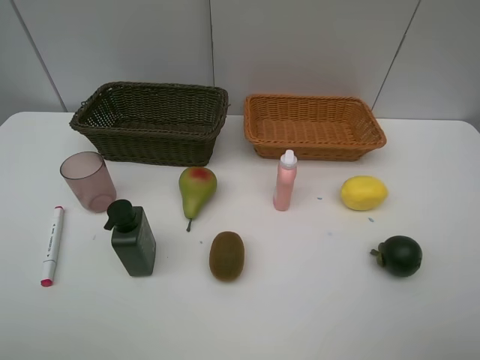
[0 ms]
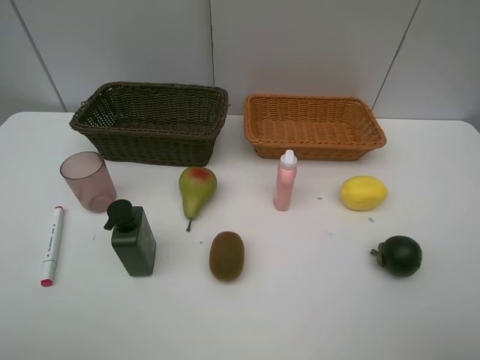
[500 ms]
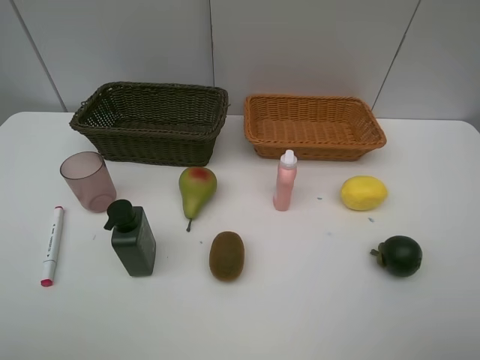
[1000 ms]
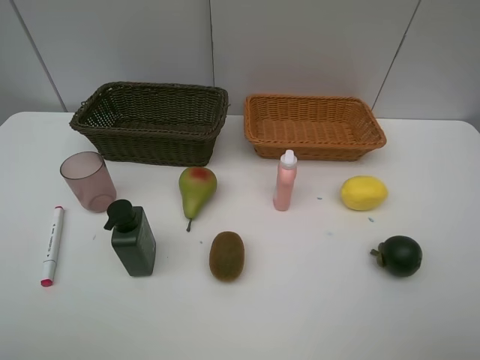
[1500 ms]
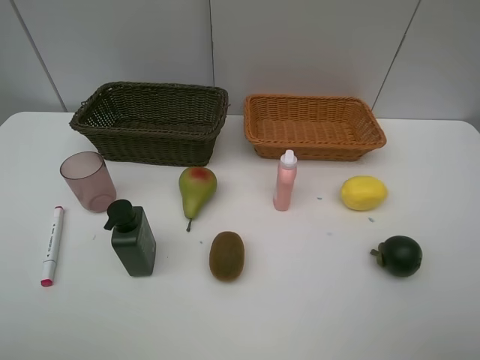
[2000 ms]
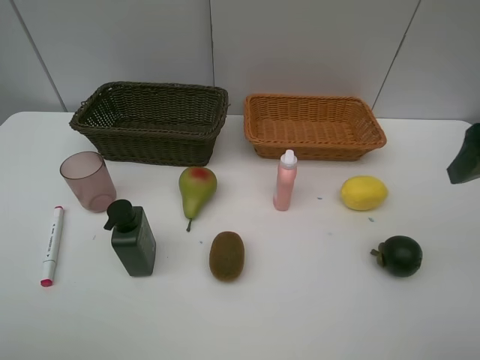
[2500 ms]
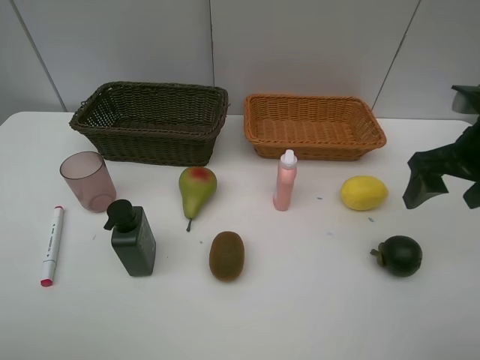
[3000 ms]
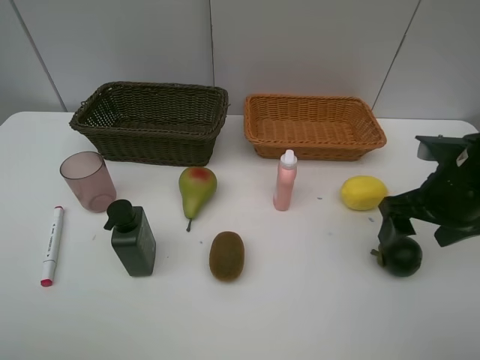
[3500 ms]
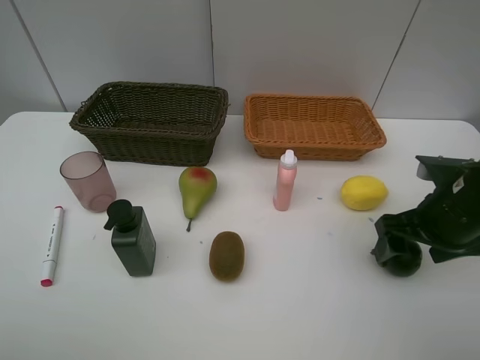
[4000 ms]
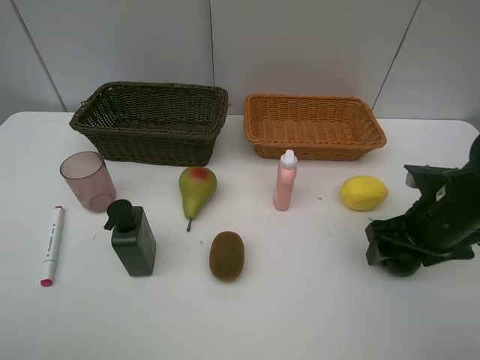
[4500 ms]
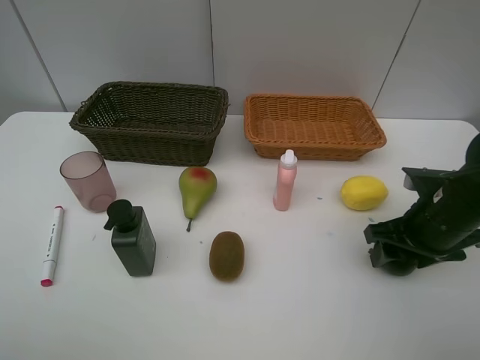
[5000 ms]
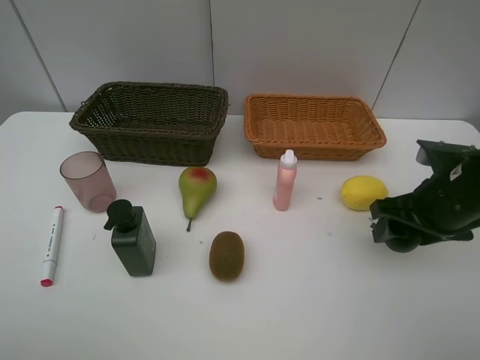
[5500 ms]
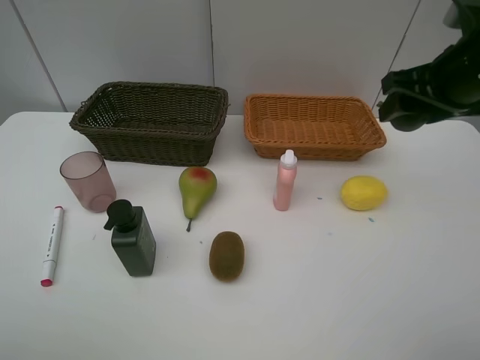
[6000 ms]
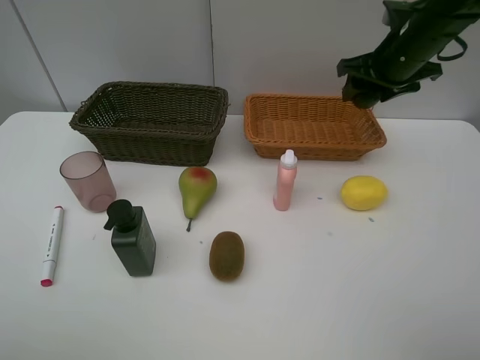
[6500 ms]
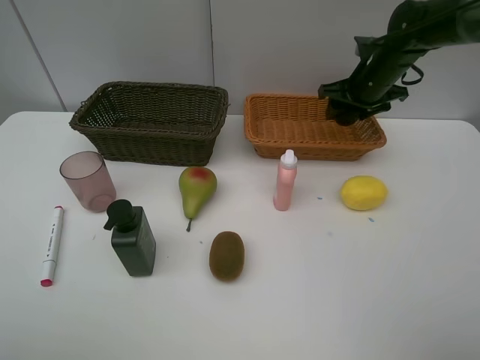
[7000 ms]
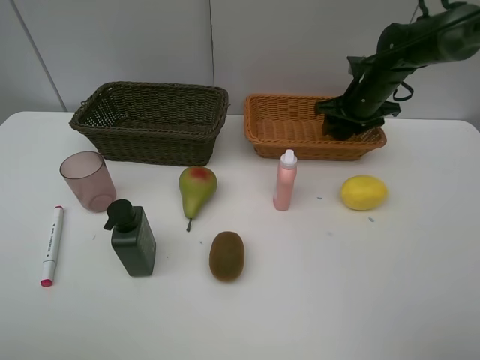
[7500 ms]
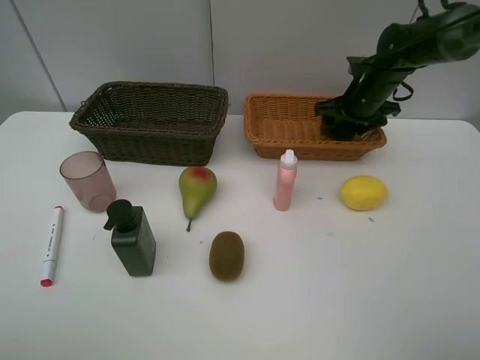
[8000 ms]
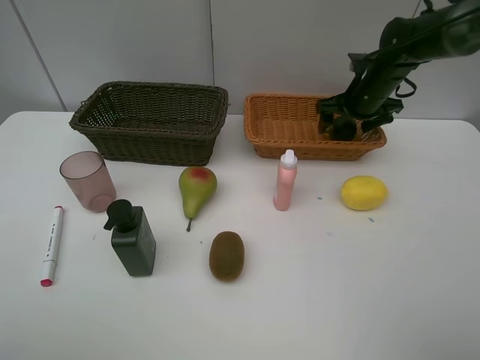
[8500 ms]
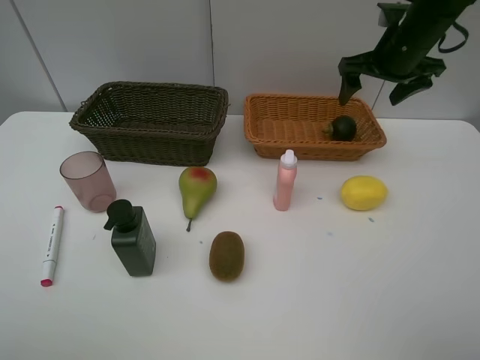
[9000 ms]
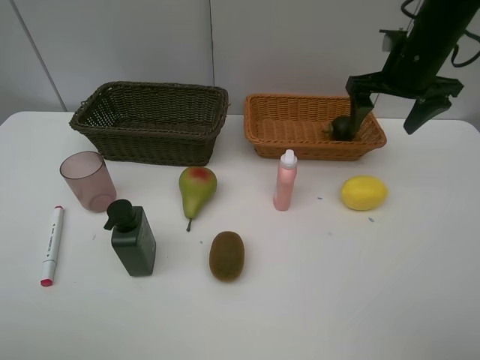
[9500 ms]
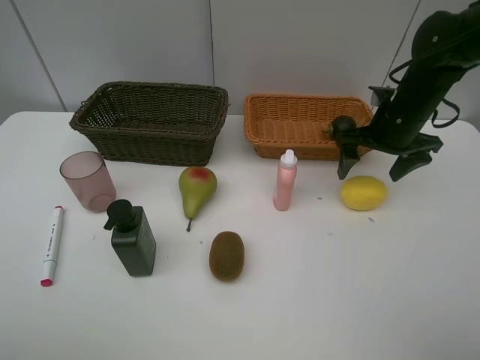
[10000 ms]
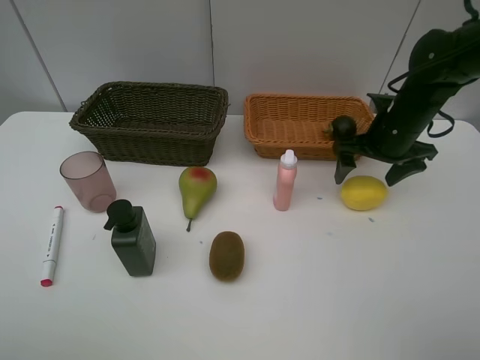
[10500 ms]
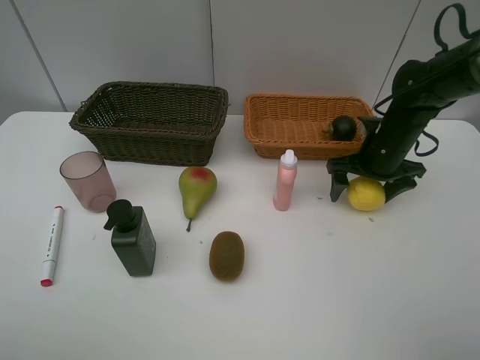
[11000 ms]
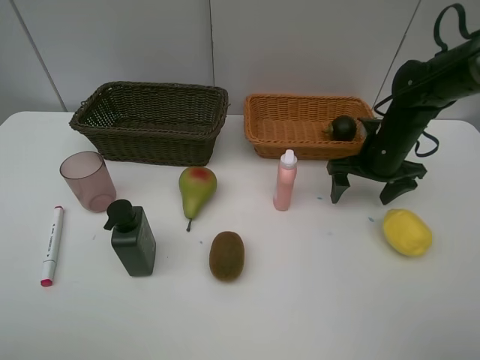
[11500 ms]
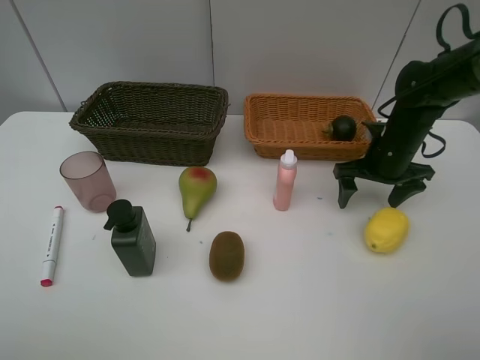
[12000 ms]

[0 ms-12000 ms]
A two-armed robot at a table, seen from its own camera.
Task of the whole recording: Place multiple objects separately in different baskets.
Step, 0 ms to 5500 ms: Pick up the mangosteen with right gripper.
Step, 6000 ms to 8500 ms: Place the mangosteen in the light basket with right gripper.
2000 ms to 4000 ms: The right gripper moves forward and downward, roughly 25 cm.
4000 ms to 6000 ms: The right gripper moves upward and forward, approximately 15 cm.
6000 ms to 8000 ms: The right gripper goes about 20 cm forward and downward.
8000 ms to 10000 ms: The right gripper heads backward, covering about 10 cm, and moves about 10 cm upward and comes back.
10000 ms to 12000 ms: The right gripper shifts some 5 cm downward.

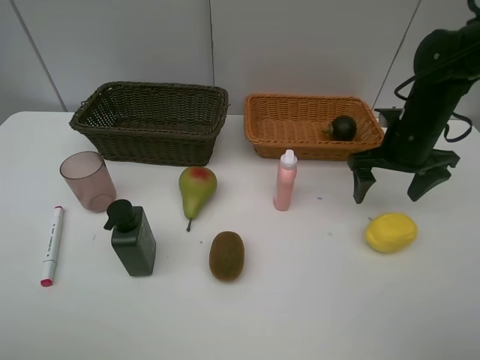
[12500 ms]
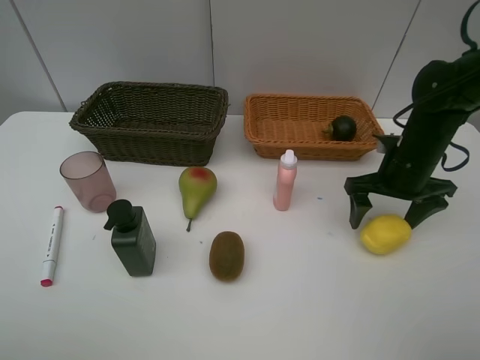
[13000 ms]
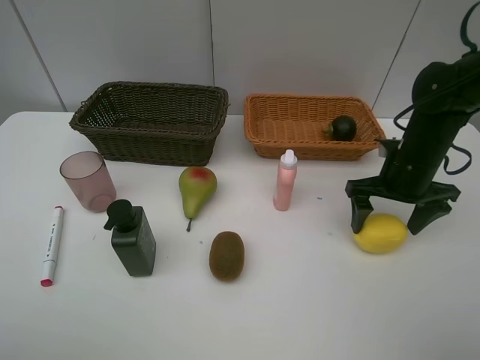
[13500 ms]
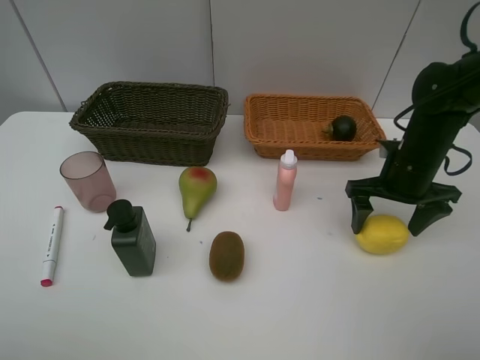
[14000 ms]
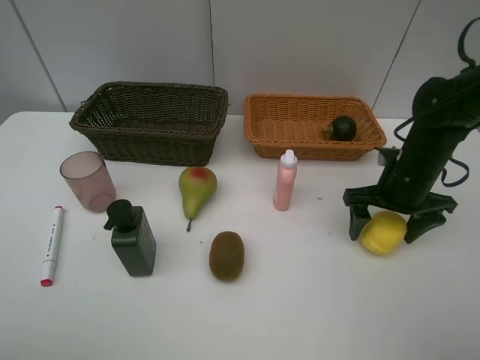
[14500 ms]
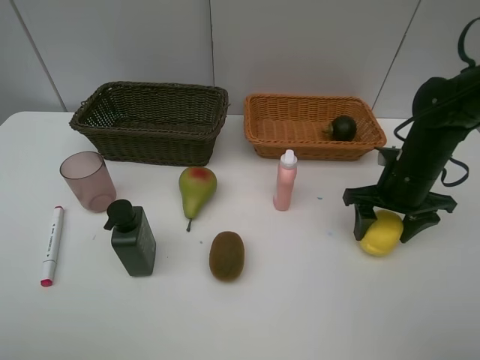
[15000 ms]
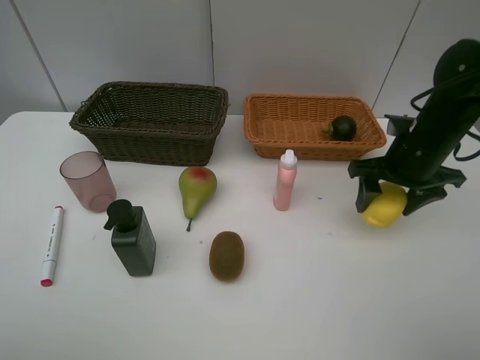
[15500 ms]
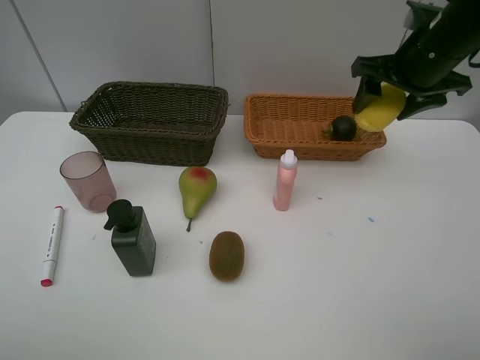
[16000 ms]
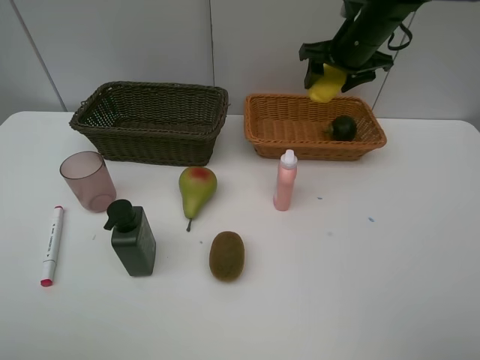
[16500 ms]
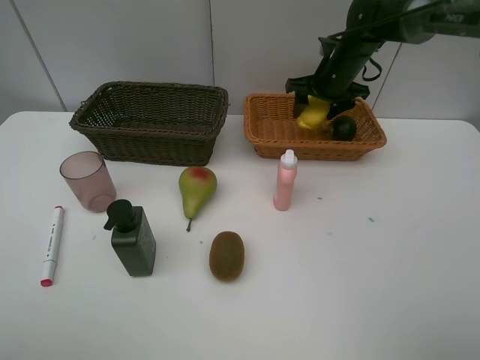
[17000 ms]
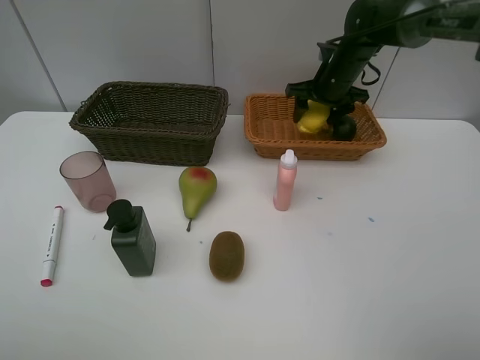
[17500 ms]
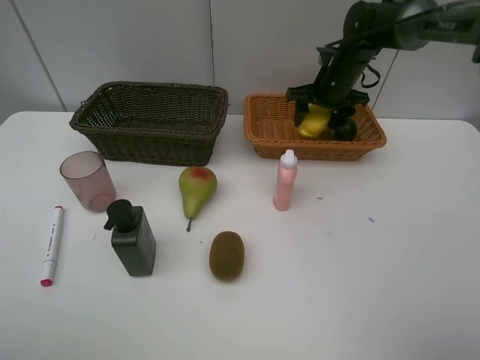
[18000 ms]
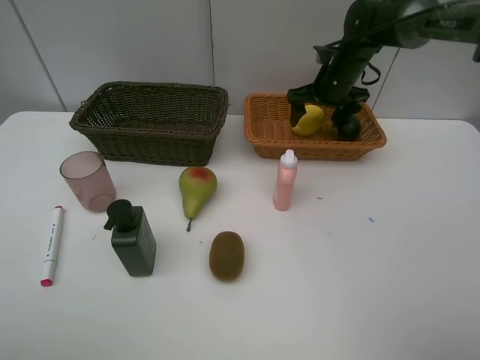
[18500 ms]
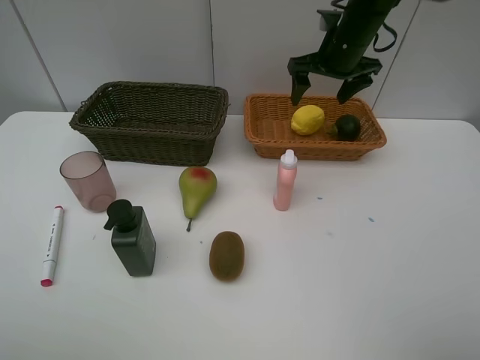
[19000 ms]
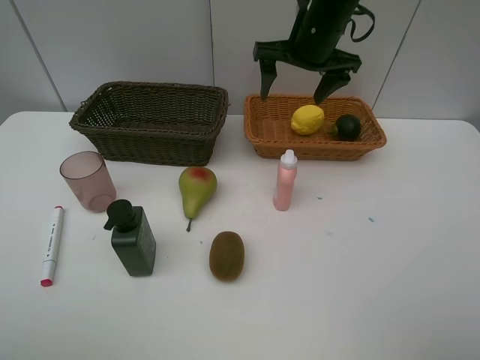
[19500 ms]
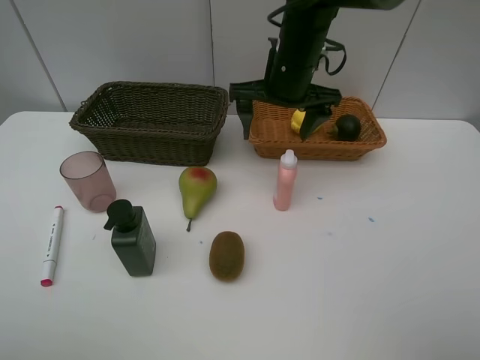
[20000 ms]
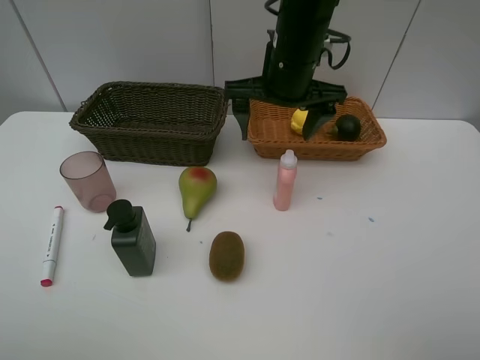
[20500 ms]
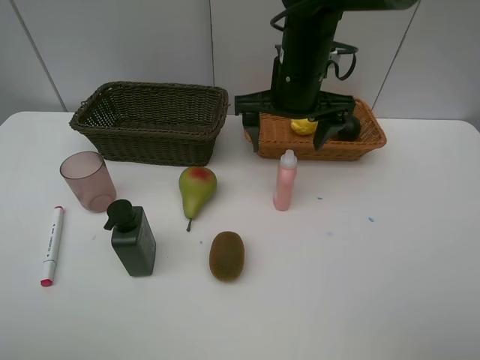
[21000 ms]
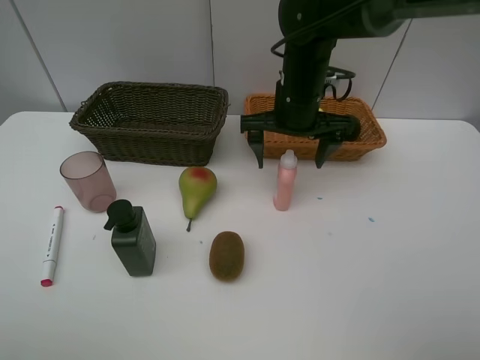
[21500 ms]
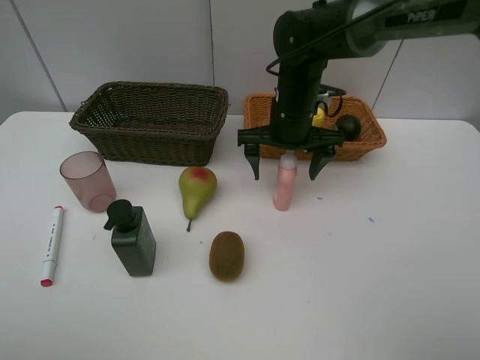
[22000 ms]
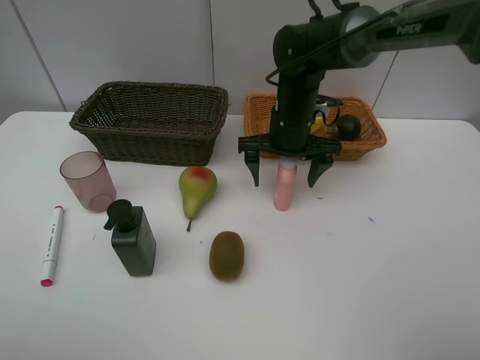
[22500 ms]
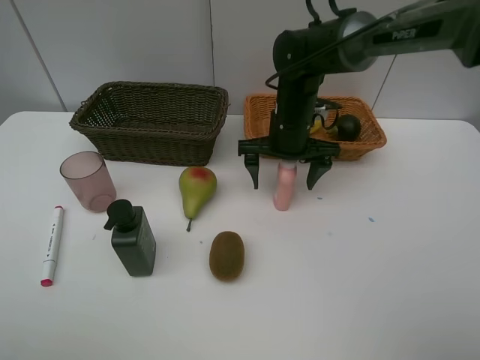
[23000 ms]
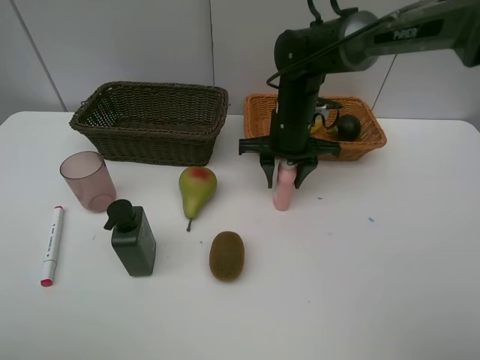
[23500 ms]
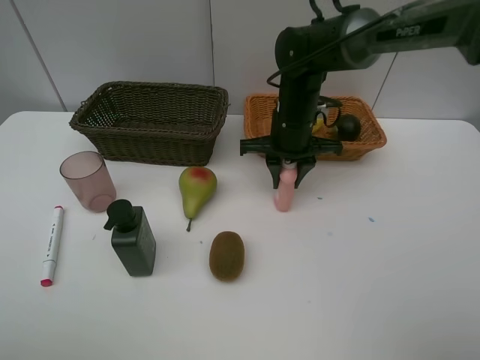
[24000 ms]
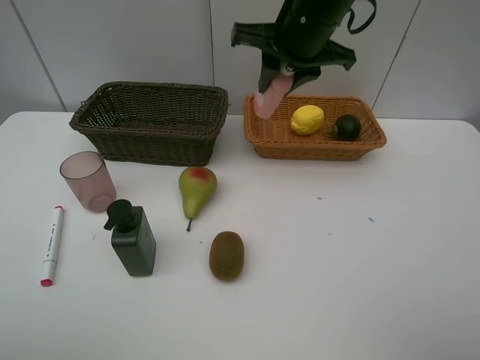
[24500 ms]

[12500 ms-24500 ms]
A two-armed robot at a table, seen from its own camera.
Task of the whole recording: Place multiple objects separately in different baskets.
Step, 12500 ms to 15500 ms: Pick up the lemon with right gripper.
Step, 16000 ms to 18500 ms: Place the lemon in the light basket with right gripper.
Step, 19000 ms to 24000 ms: Pick up the laundry detergent with right gripper.
12500 ms to 14500 ms: The right gripper ends up roughly 5 cm from where it was.
14500 ms to 16500 ms: The right gripper shifts some 20 cm forward and upward.
16500 ms to 18500 ms: The right gripper shifts approximately 5 cm downward, and opens its fingers.
18500 ms to 20500 ms: The right gripper is displaced backward, to the left and upward by approximately 20 cm.
20500 ms to 22500 ms: The right gripper goes roughly 10 cm downward.
22500 ms to 24500 ms: The right gripper travels upward by roughly 15 cm, and closes.

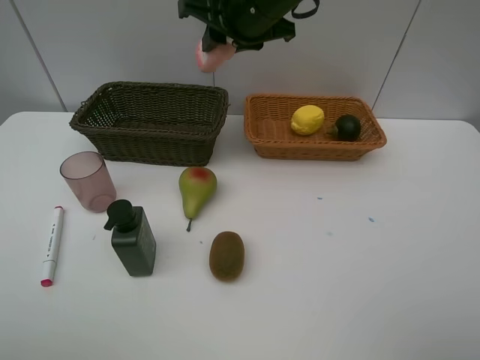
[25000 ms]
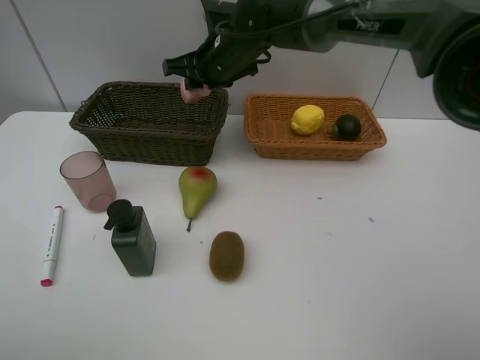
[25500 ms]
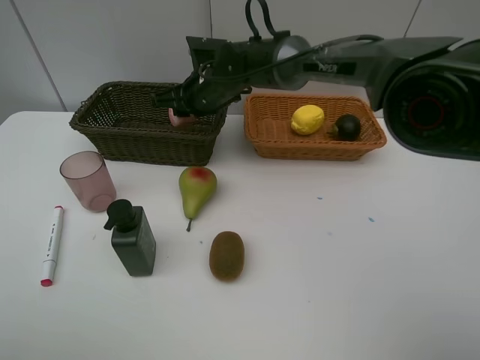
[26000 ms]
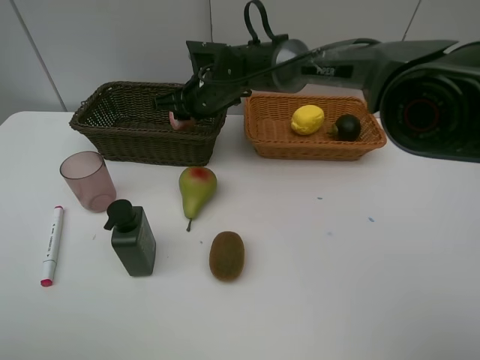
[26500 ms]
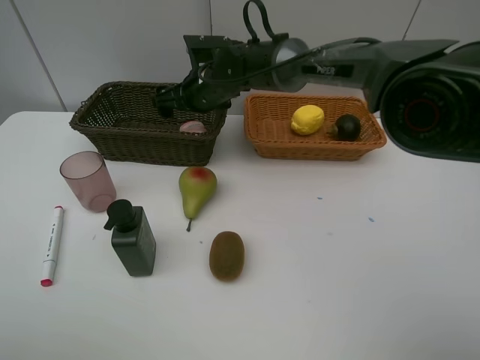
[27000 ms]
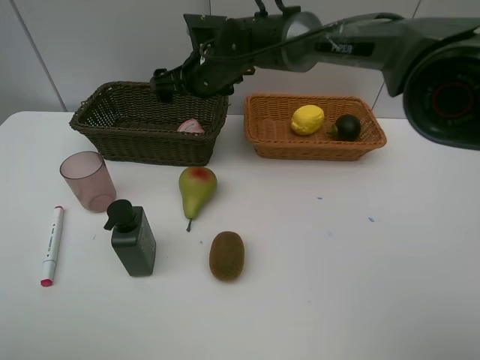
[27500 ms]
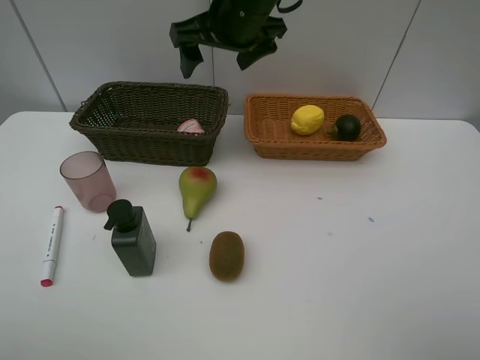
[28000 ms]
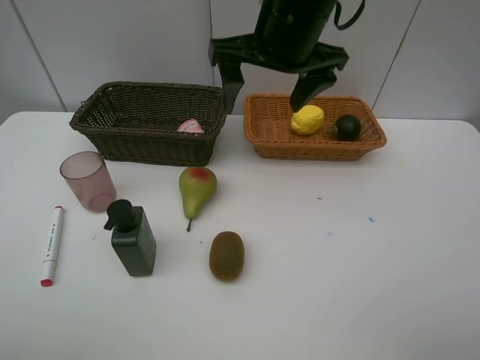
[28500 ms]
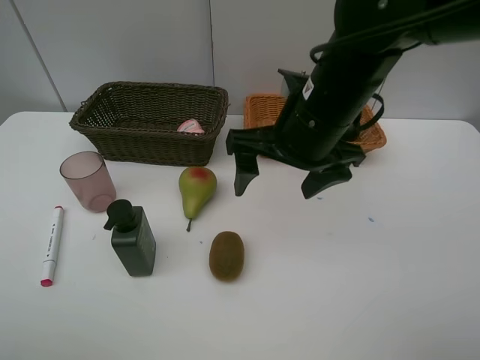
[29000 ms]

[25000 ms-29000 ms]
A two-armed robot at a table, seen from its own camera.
Task of the whole recording: Place multiple objects separately in different baskets.
Step, 25000 ms to 27500 ms: Place the laundry detergent in the dark basket with right gripper.
25000 ms to 27000 ms: The right gripper travels downward, to the left and forward by about 15 cm, and opens.
27000 ms to 29000 ms: The right gripper travels backward and to the right by about 25 cm.
